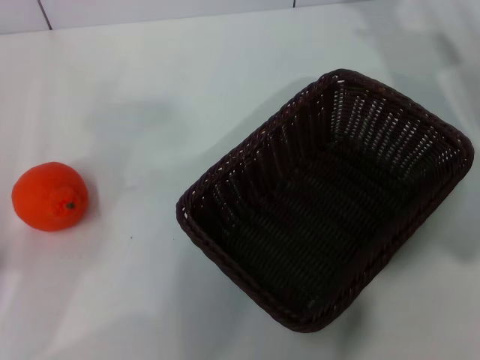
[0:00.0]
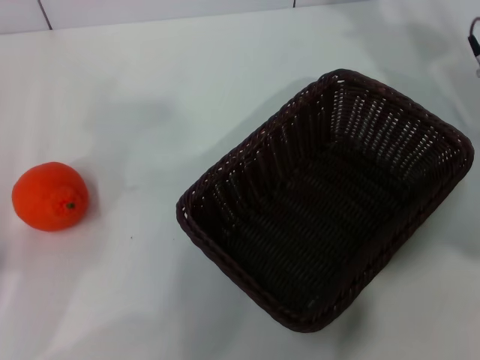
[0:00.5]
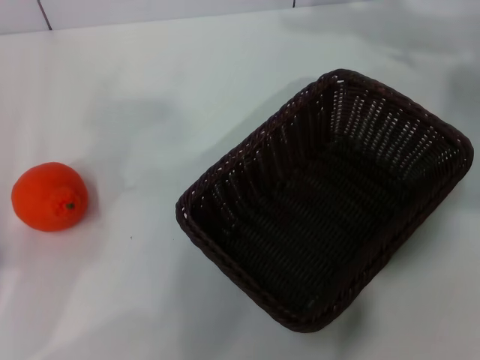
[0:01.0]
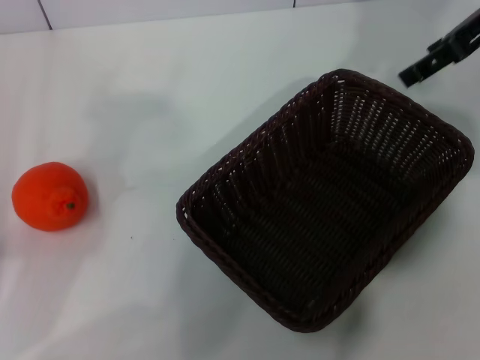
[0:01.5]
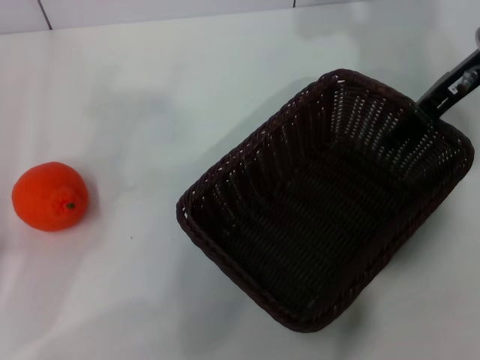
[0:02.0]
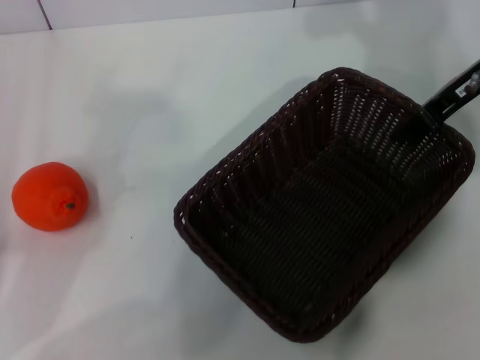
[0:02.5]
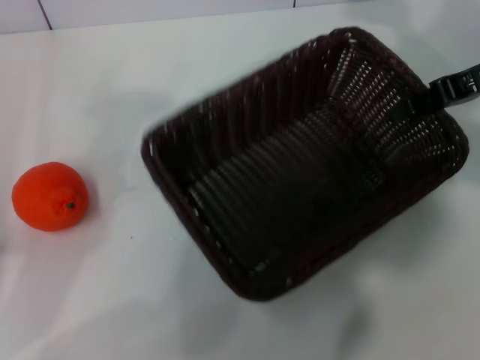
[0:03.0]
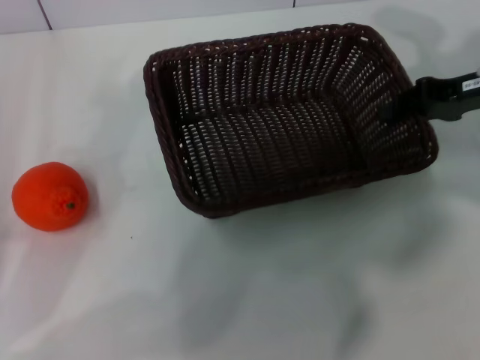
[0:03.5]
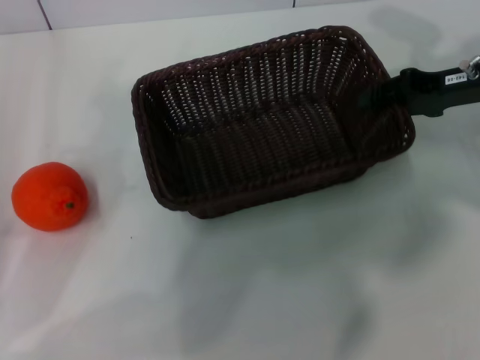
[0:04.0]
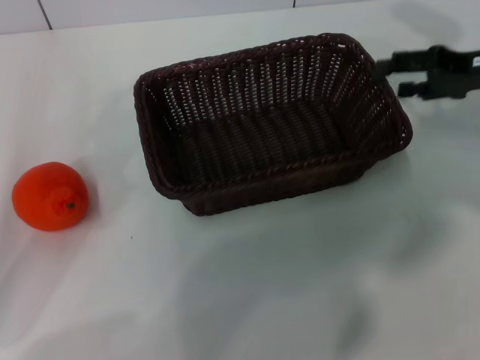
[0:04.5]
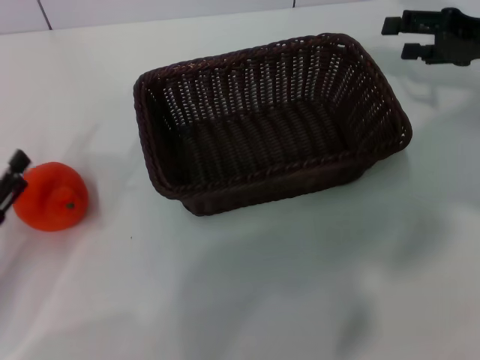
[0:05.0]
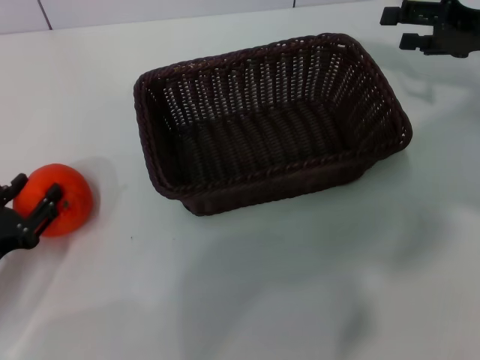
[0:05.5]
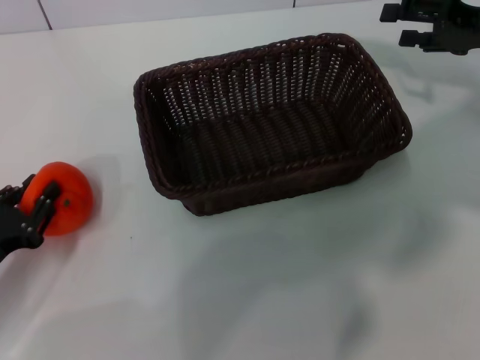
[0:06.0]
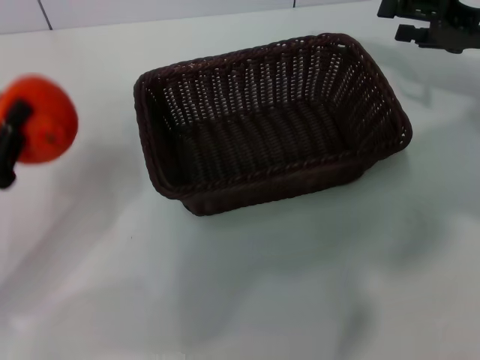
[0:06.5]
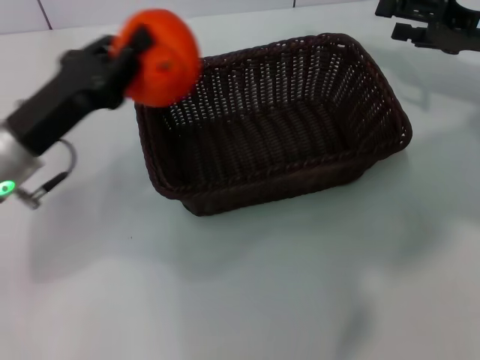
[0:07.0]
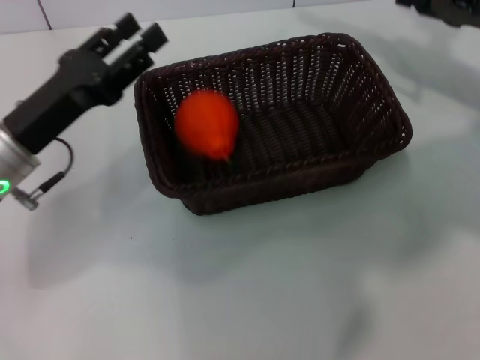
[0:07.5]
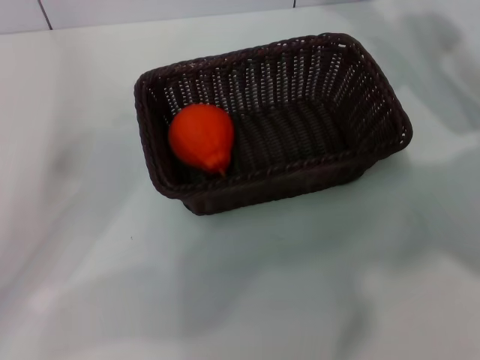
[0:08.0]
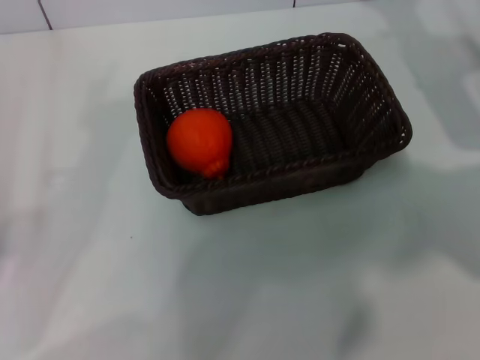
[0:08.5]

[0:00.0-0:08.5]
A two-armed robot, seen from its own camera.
Task of the whole recording: the right gripper pick up the black basket and place it horizontally in the middle of the table, the left gripper pick up the orange and place it into the black basket.
Step, 0:00.0 to 0:03.0: Pick up the dark basket with the right gripper.
Step, 0:03.5 to 0:04.5: Place the dark basket in the center of view with the right gripper.
Step, 0:05.0 to 0:06.5: Pick up the orange with the left gripper.
0:00.0 to 0:02.0: The right gripper heads upward, covering roughly 5 cm.
0:02.0 to 0:04.0: The right gripper shifts some 5 cm downward, and closes up.
0:04.0 to 0:06.5: The left gripper moves approximately 10 cm downward and comes back, and closes its fingers. The right gripper opens its fingers.
0:06.5 to 0:08.5: The left gripper goes forward and returns, some 10 cm each way, and opens up.

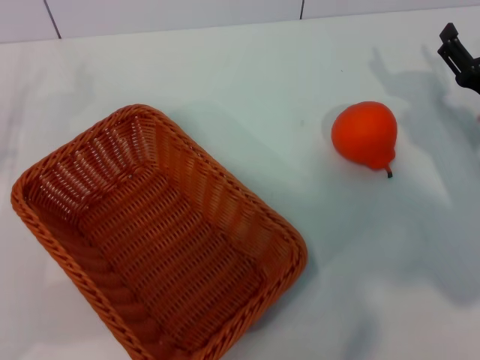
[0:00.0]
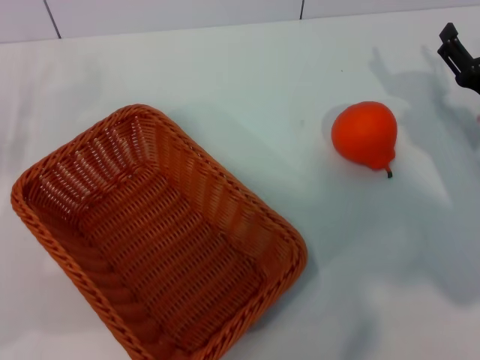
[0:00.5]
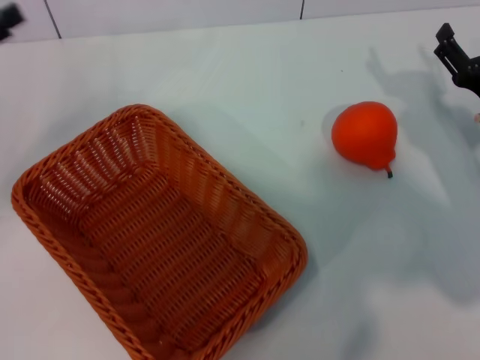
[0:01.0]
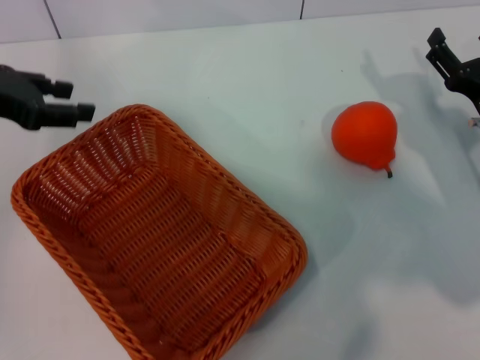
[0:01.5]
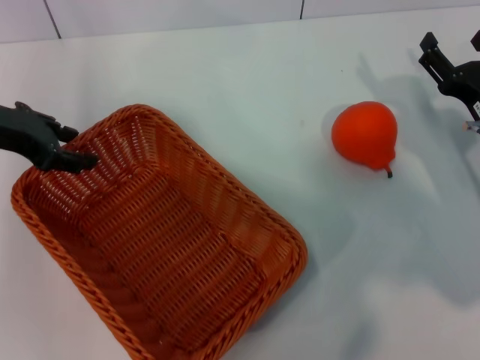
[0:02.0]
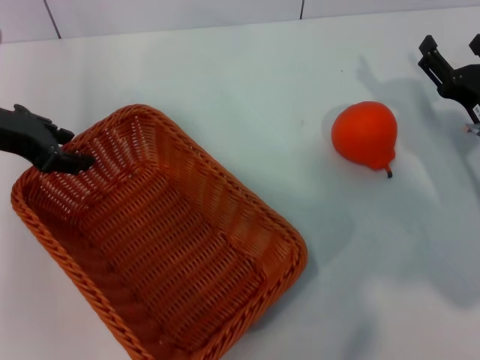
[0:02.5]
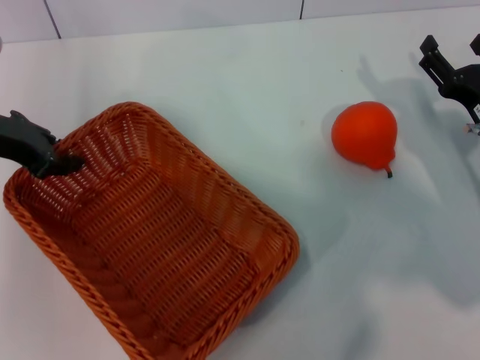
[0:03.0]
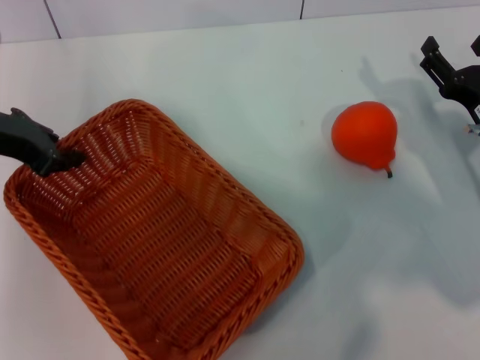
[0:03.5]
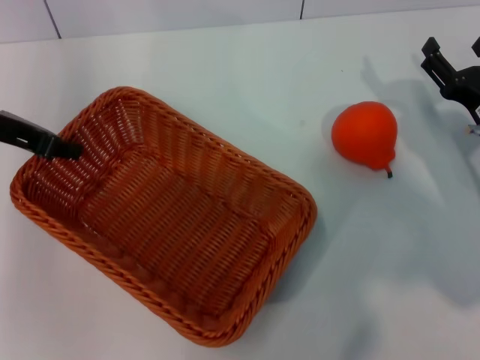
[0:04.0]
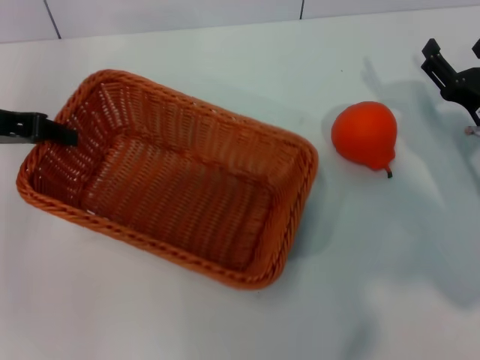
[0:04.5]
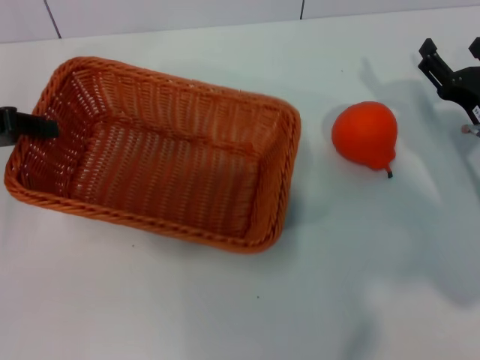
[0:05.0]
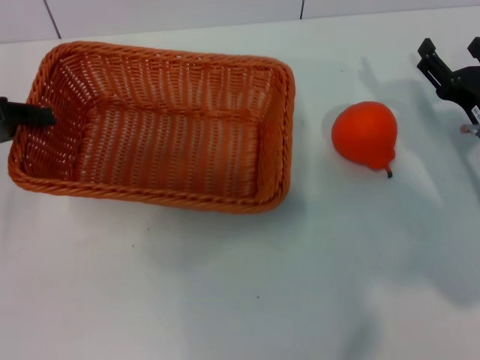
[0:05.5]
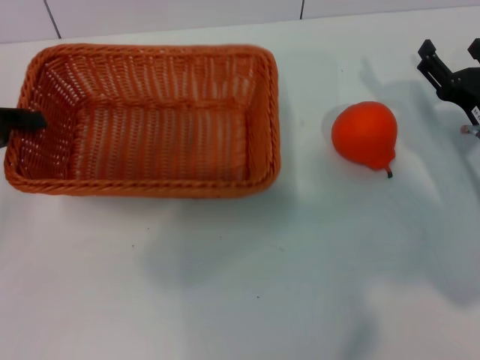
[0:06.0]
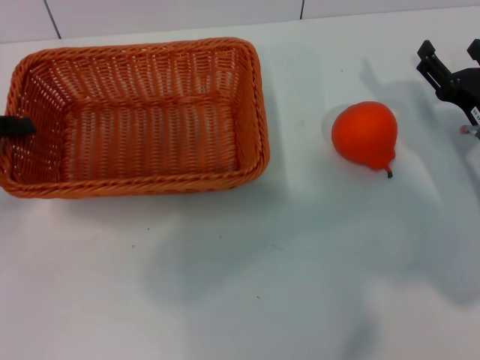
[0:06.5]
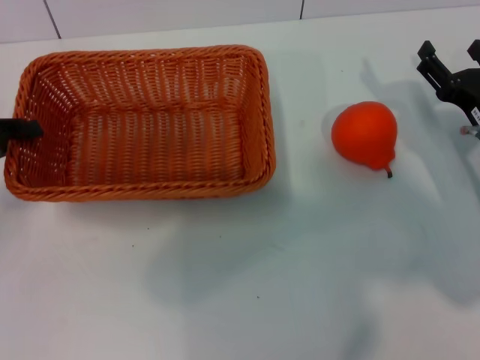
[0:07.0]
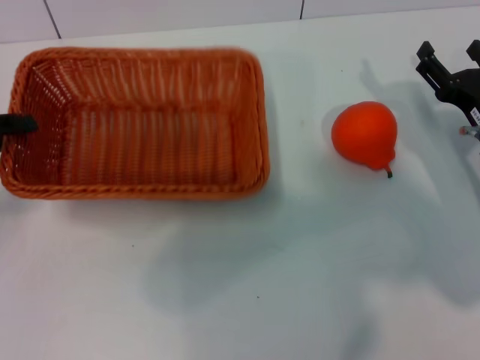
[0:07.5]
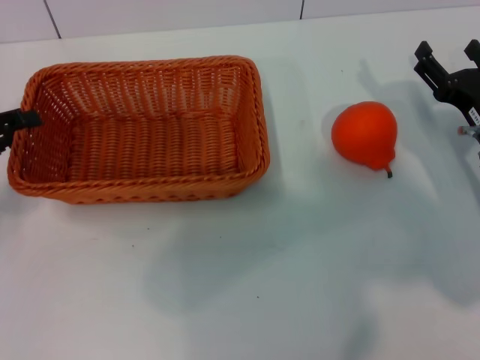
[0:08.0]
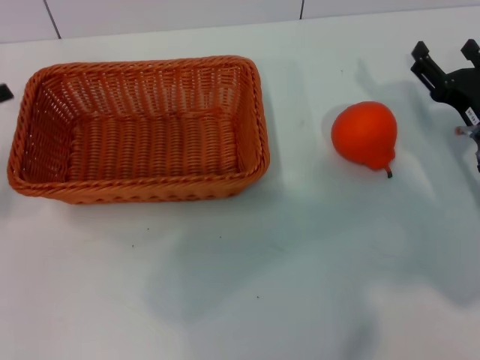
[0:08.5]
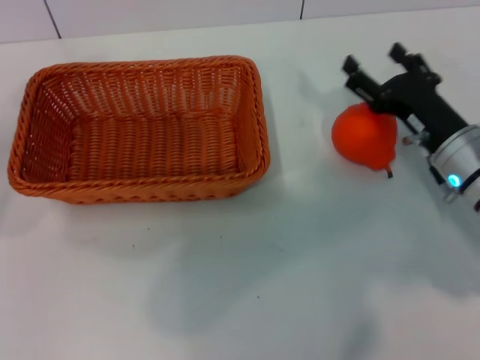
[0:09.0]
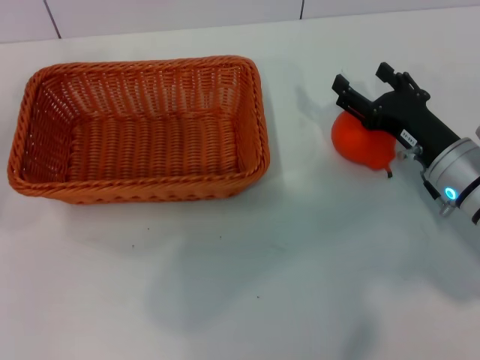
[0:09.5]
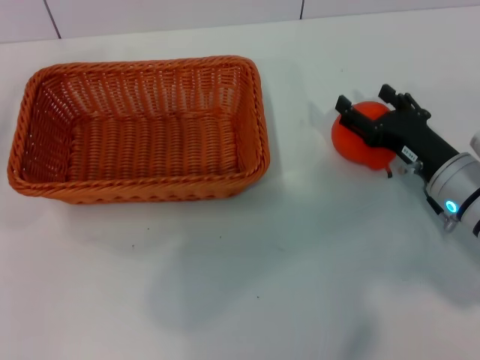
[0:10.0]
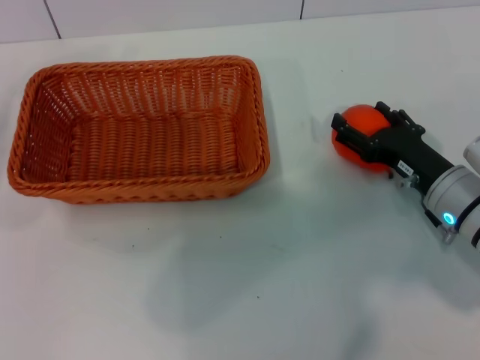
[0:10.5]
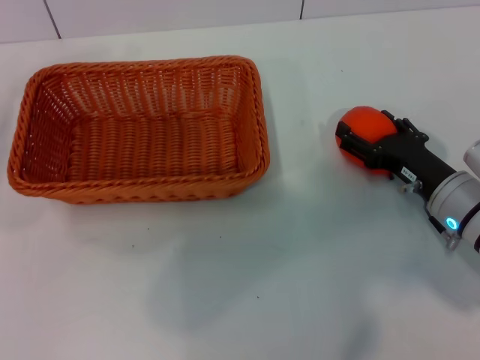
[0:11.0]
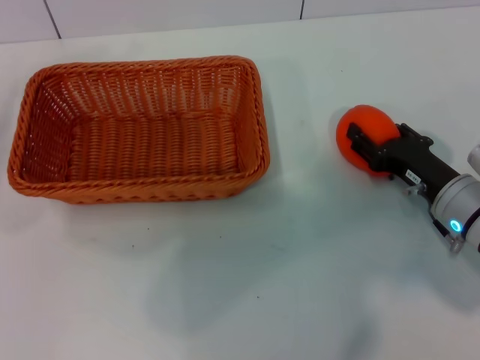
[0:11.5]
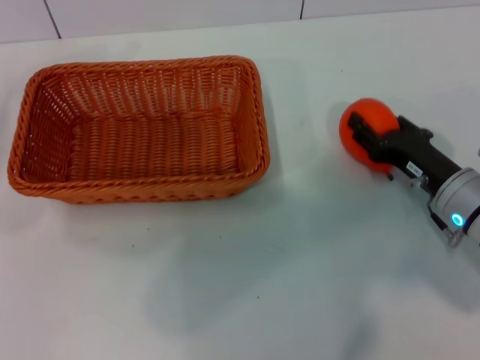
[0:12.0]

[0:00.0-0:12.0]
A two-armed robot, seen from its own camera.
Task of the whole recording: the left gripper pick up the yellow basket and place it horizontally in the middle of the table, the right gripper pick up the orange and place it into the yellow basket.
Step, 0:00.0 to 0:03.0: Pick up the light basket with the left gripper.
Step, 0:04.0 to 0:07.5: Place the light basket in the center of view with the left gripper.
0:00.0 to 0:02.0: The left gripper heads upward, forward and to the right, covering approximately 15 cm.
0:02.0 to 0:04.0: The left gripper closes its fingers.
0:04.0 to 0:06.0: The left gripper travels to the left and downward by roughly 10 cm.
0:06.0 to 0:08.0: There are only small adjustments of the grippers.
0:08.0 to 0:10.0: The left gripper opens up.
0:10.0 to 0:12.0: The right gripper closes its fingers.

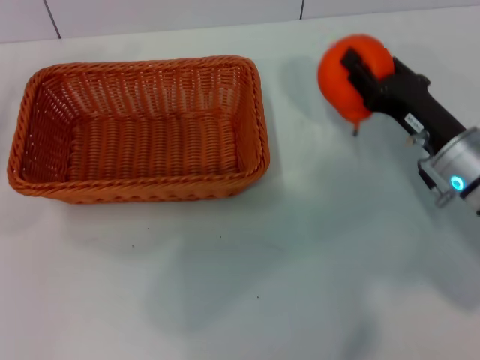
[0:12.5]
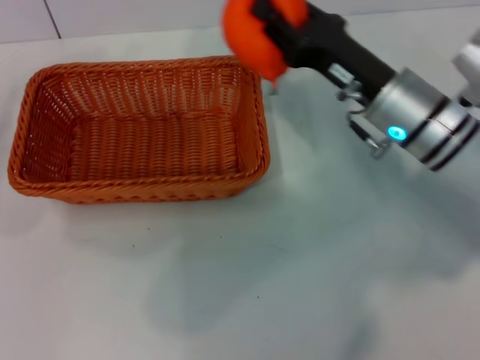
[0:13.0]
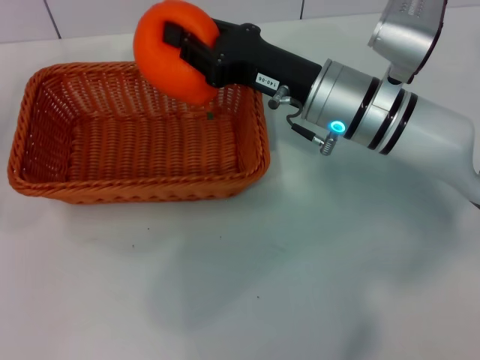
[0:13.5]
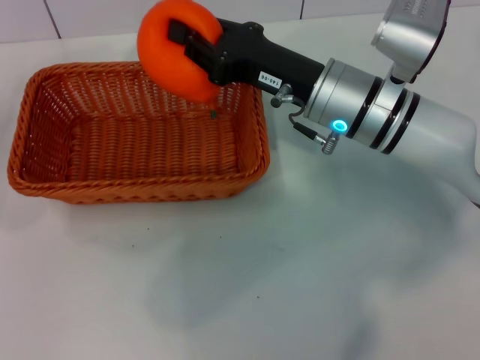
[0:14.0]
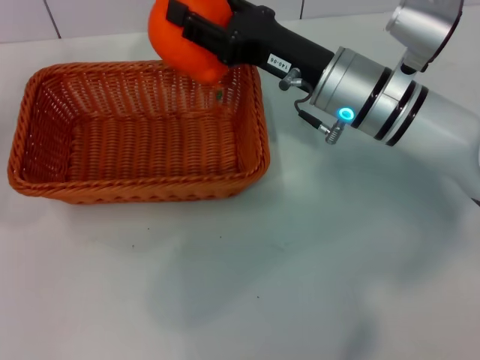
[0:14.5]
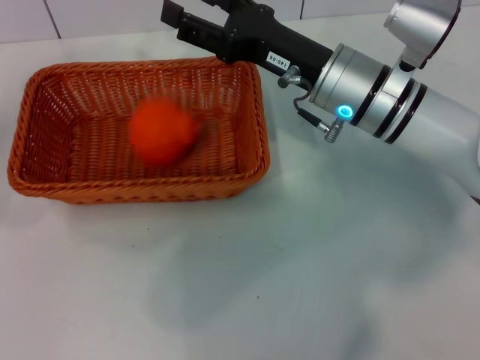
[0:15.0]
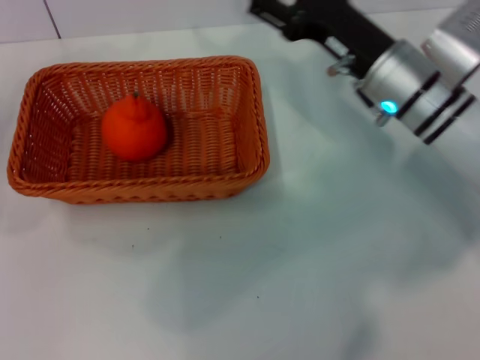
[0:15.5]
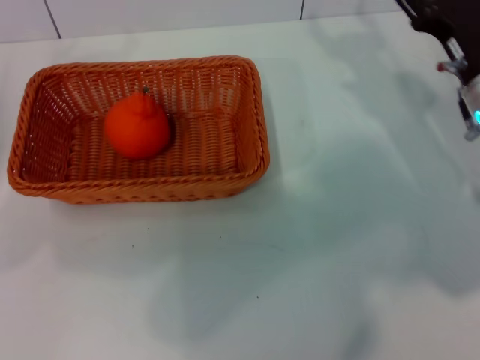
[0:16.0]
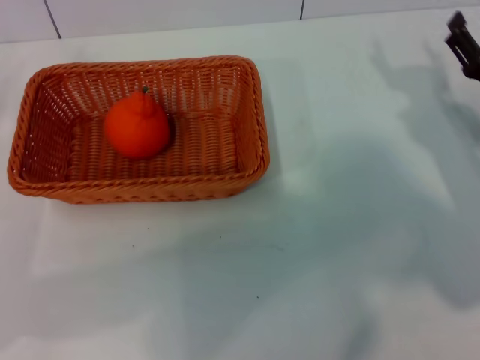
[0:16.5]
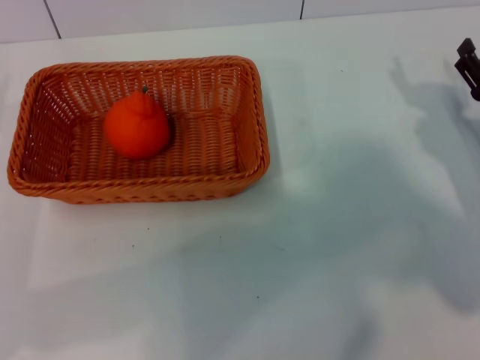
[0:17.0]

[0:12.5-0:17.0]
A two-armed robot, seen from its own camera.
Task of the whole recording: the left gripper pick up the yellow basket and place it horizontally in the middle of the table, the right gripper pick up the orange and place it into the yellow basket.
Step, 0:12.5 to 0:14.5: Place the orange into the light basket with the right gripper.
0:12.5 to 0:14.5: The right gripper is displaced to the left, upward and forward by roughly 15 cm.
0:14.5 to 0:17.0: The right gripper travels to the right and downward by roughly 20 cm, and opens; the left gripper moves downward and backward, some 10 cm.
